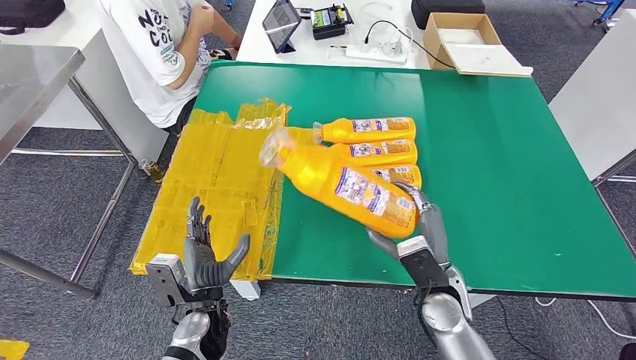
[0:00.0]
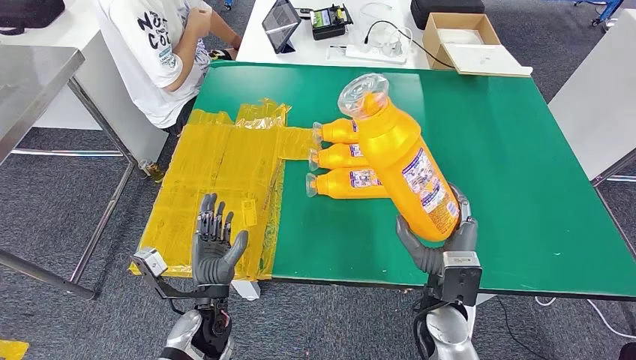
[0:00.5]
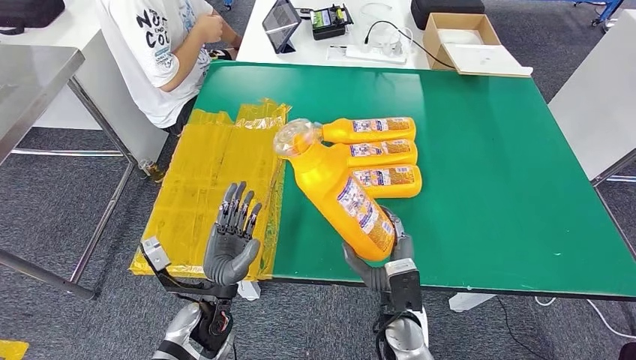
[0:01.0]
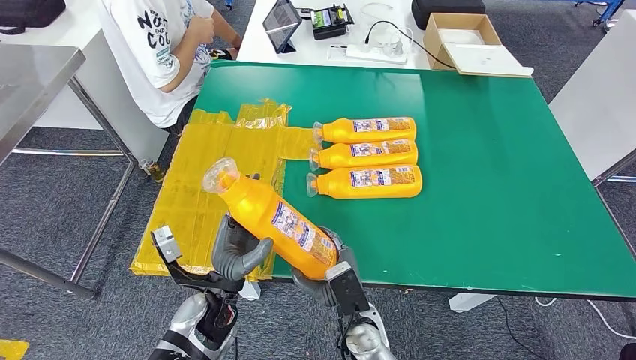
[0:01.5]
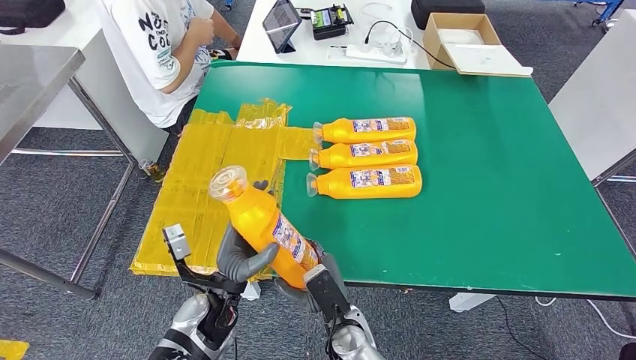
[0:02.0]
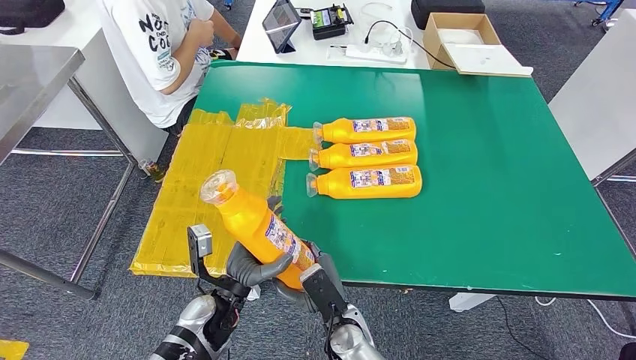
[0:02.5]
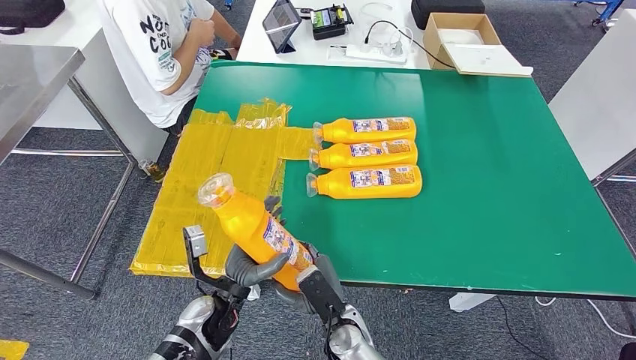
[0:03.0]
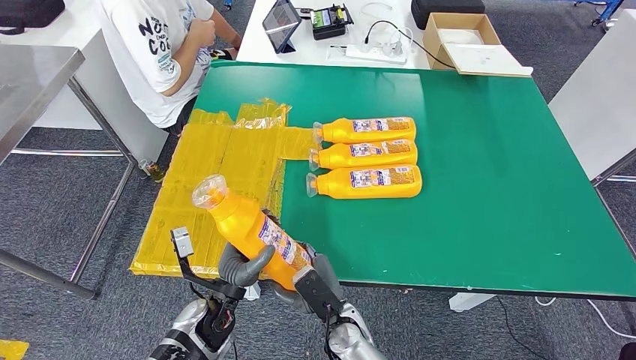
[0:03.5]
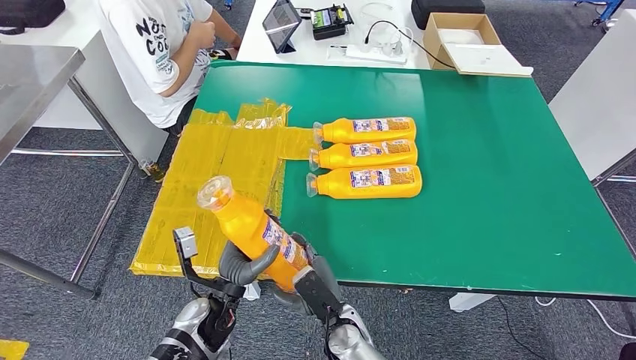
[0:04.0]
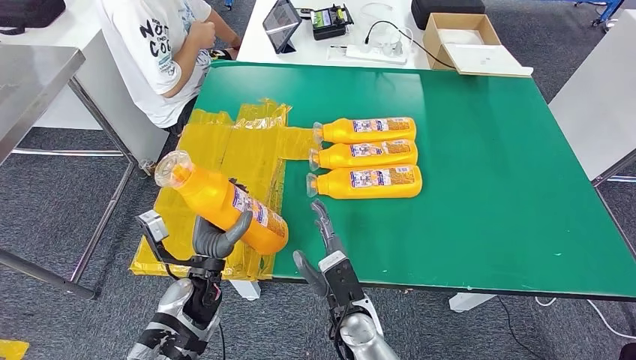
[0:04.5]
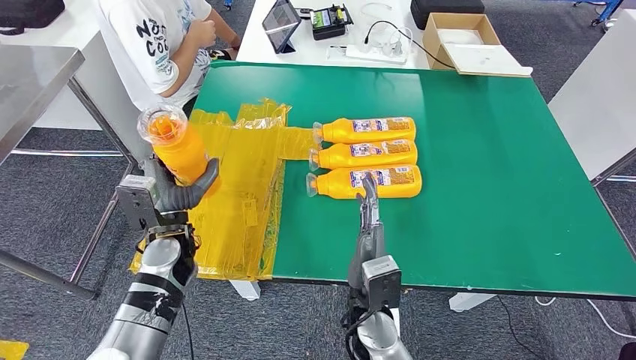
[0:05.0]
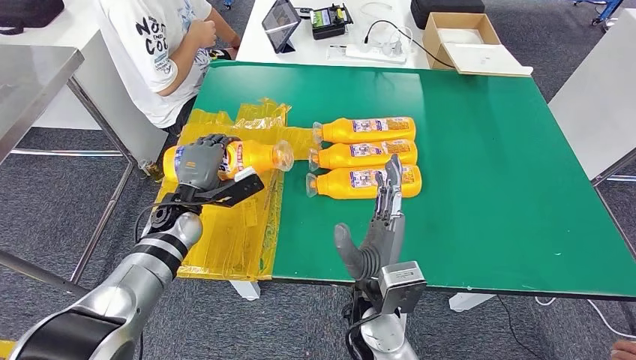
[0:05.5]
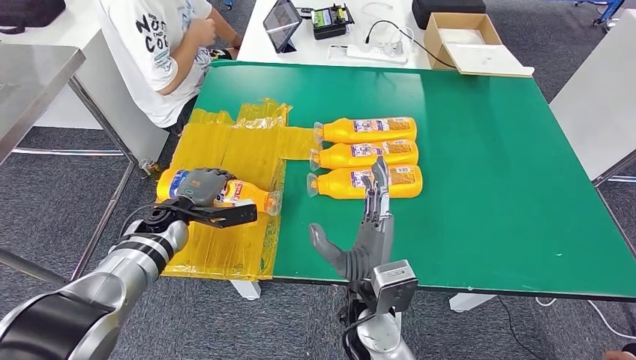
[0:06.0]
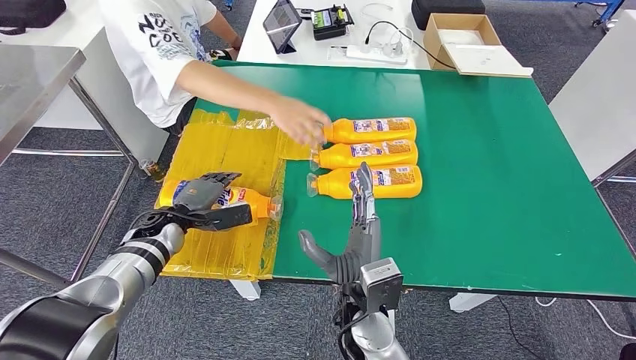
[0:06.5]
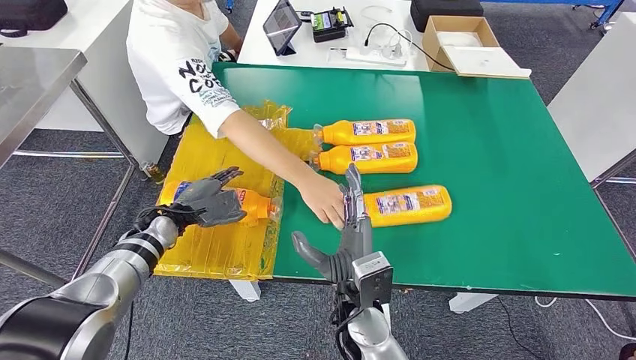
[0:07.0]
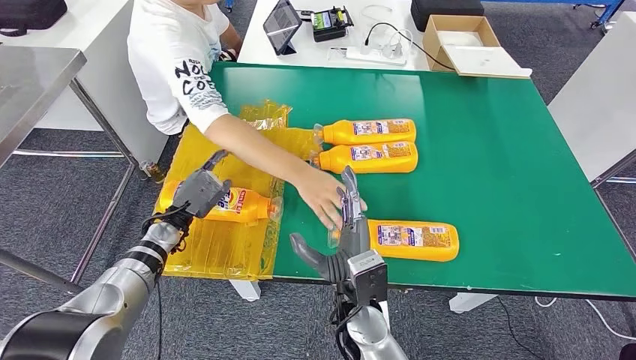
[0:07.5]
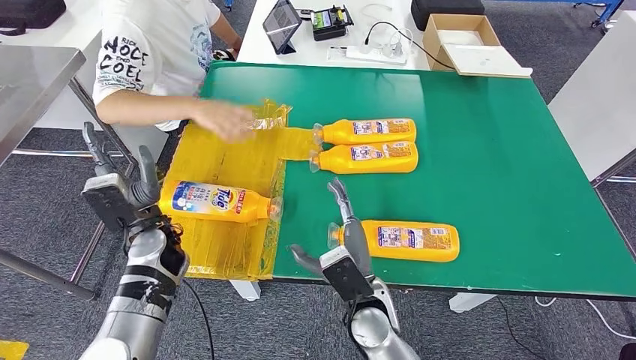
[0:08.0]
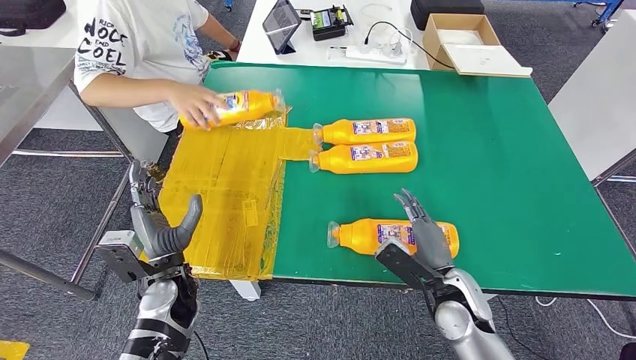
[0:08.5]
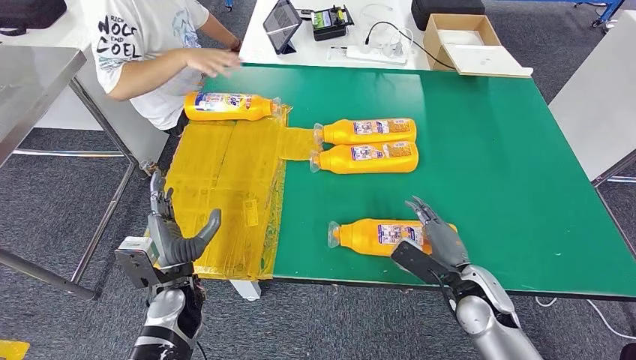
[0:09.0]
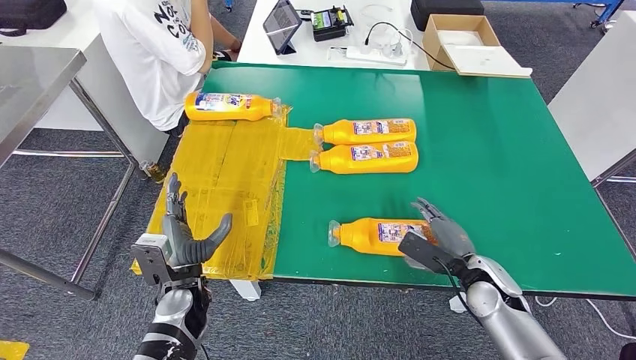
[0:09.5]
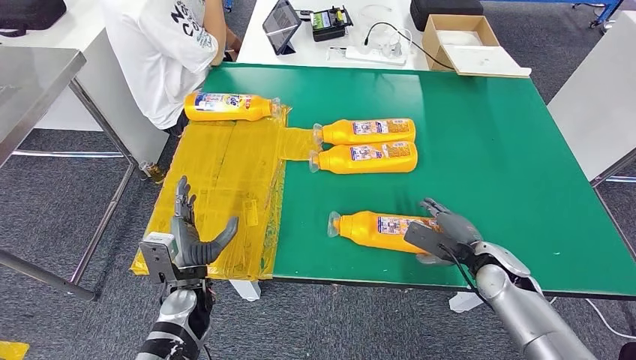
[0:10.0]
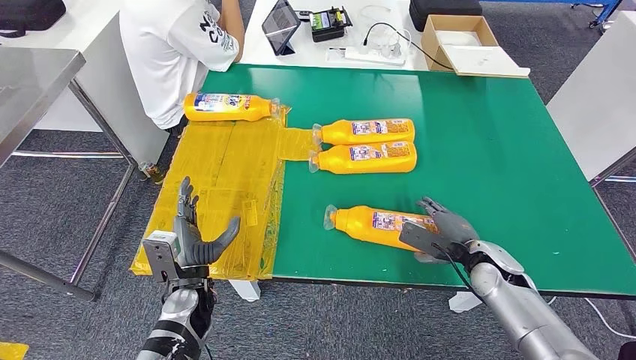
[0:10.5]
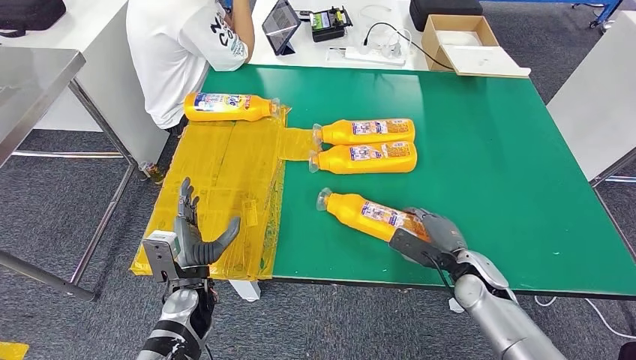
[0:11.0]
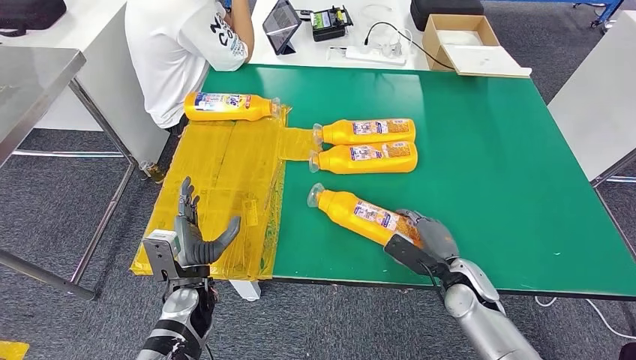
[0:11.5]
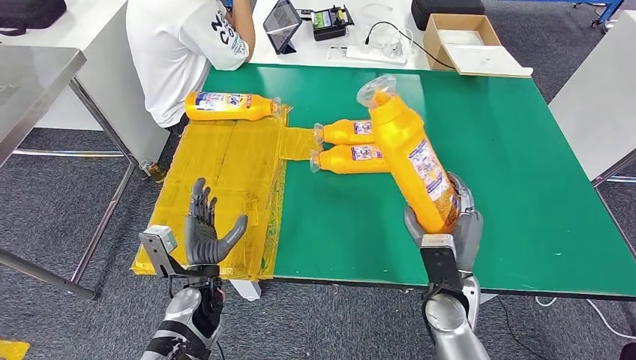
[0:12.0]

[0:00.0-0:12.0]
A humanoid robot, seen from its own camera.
Step, 0:00.5 to 0:06.5: Flip the fast-moving consumer goods bottle to the front side.
0:00.0 to 0:02.0: The right hand goes some 20 cm to the left and downward.
0:02.0 to 0:04.0: The hands move only a little.
0:04.0 to 0:06.0: The left hand goes some 20 cm forward and to the left; the right hand goes some 15 cm upward.
0:10.0 to 0:12.0: The right hand shifts roughly 15 cm to the left and backward.

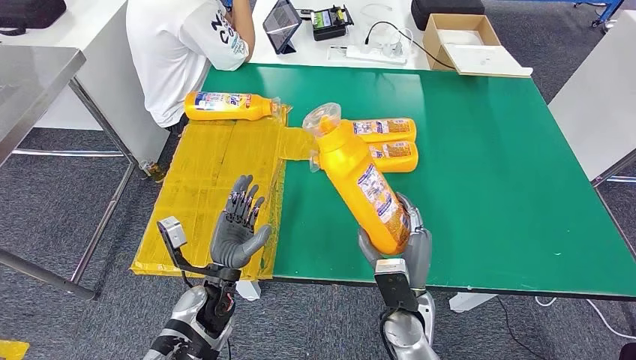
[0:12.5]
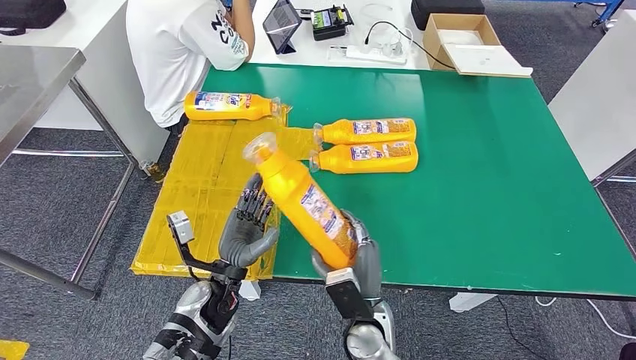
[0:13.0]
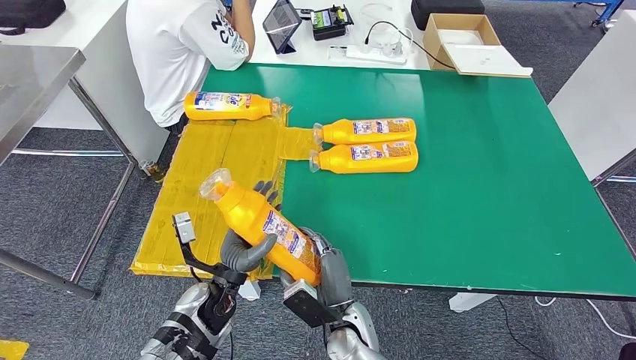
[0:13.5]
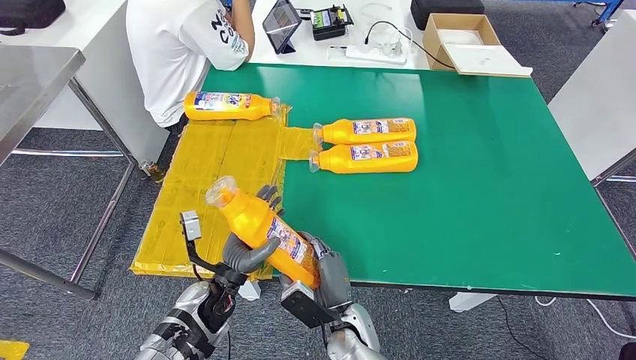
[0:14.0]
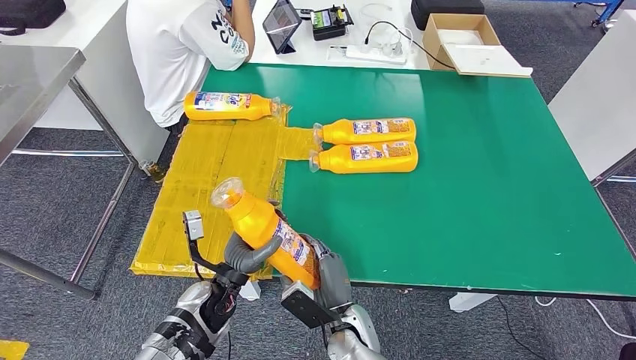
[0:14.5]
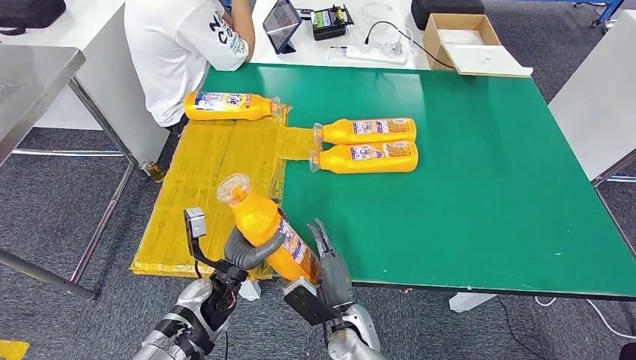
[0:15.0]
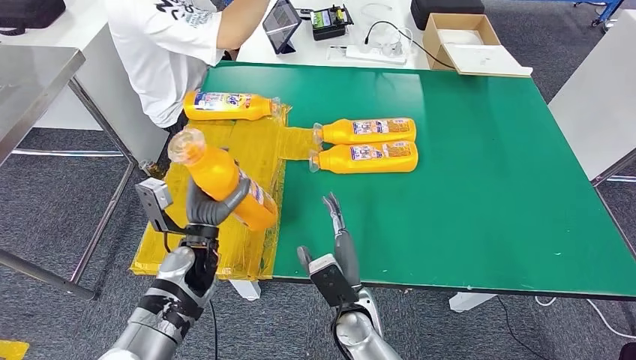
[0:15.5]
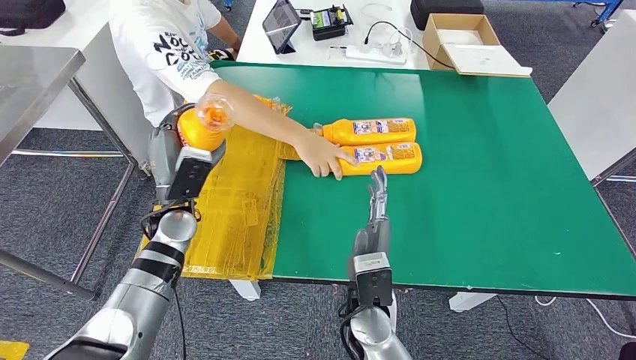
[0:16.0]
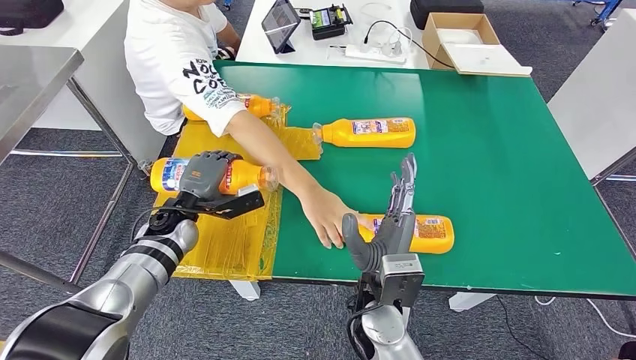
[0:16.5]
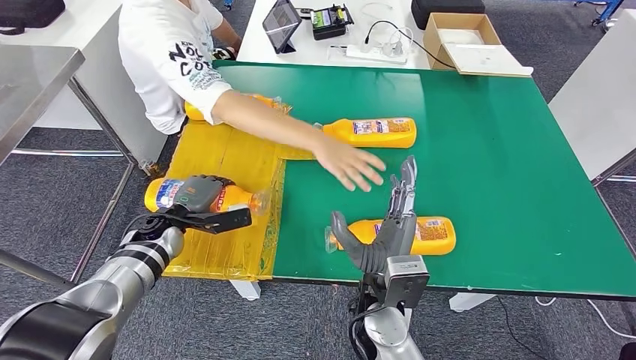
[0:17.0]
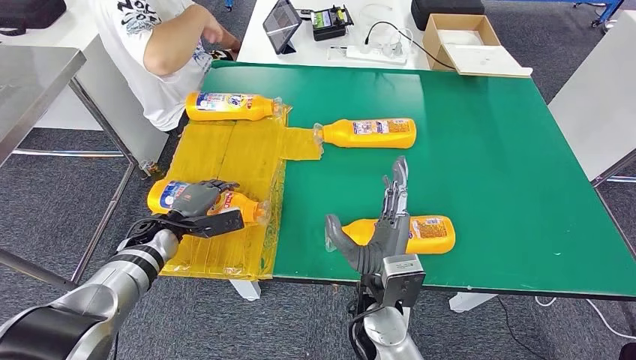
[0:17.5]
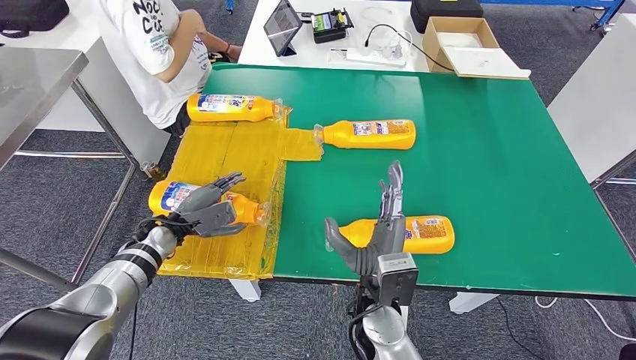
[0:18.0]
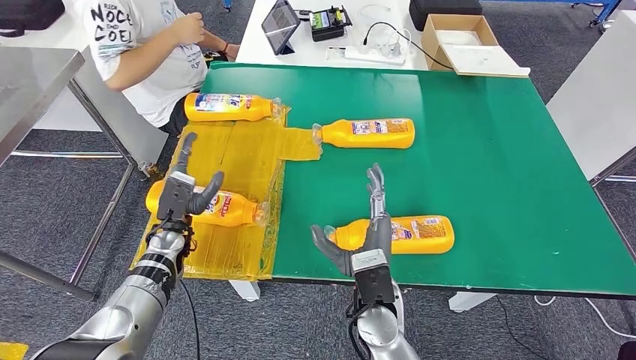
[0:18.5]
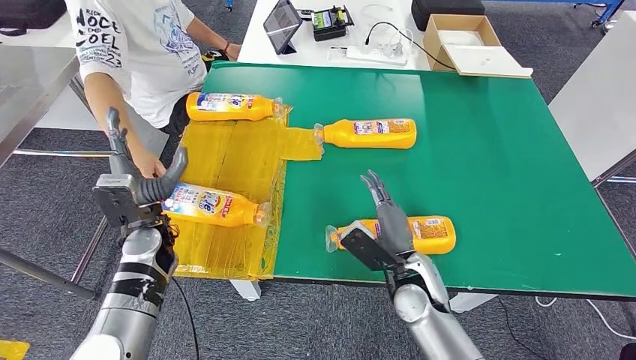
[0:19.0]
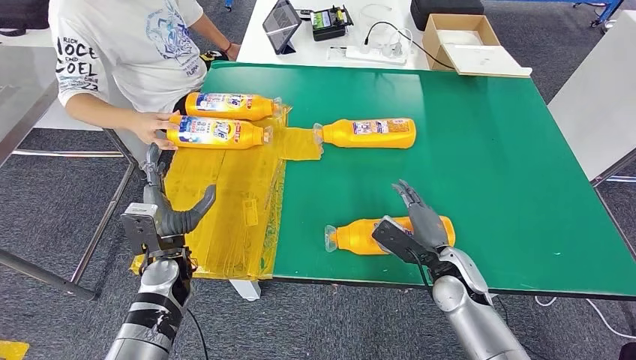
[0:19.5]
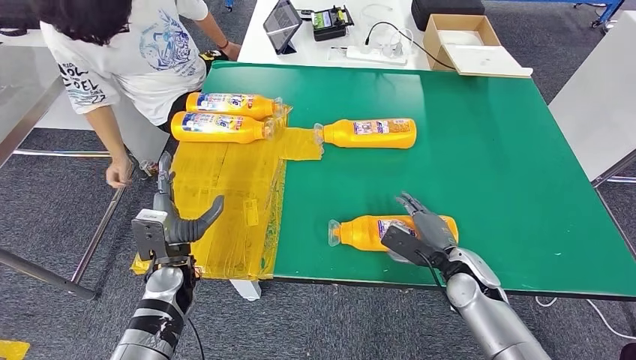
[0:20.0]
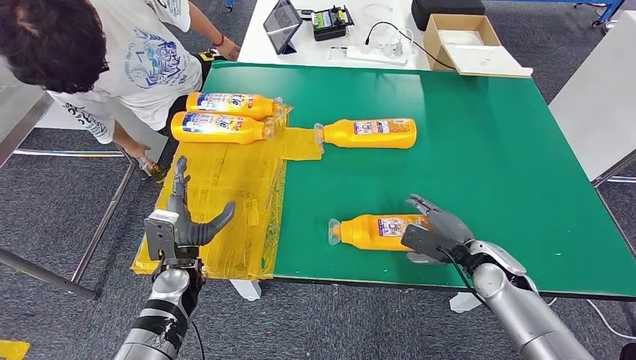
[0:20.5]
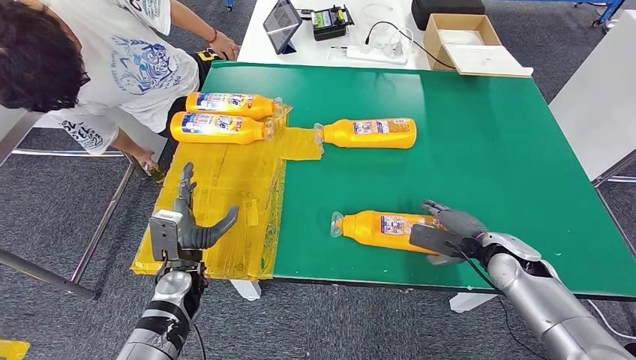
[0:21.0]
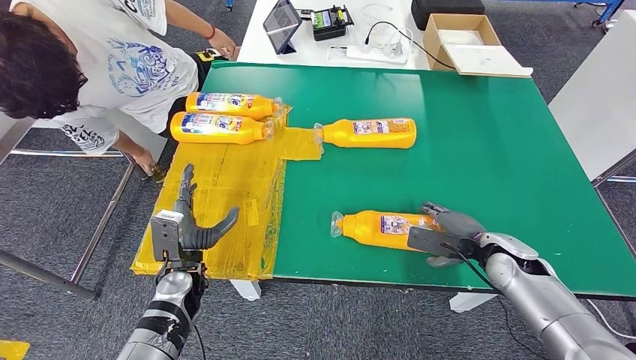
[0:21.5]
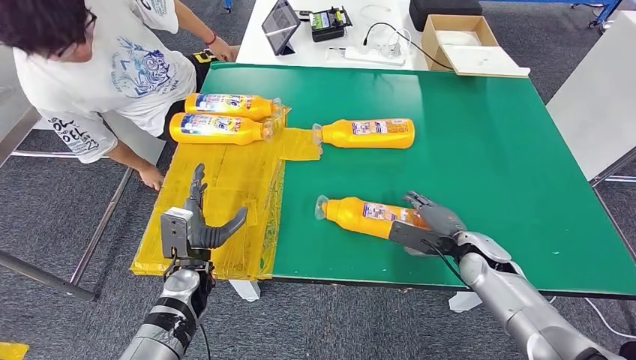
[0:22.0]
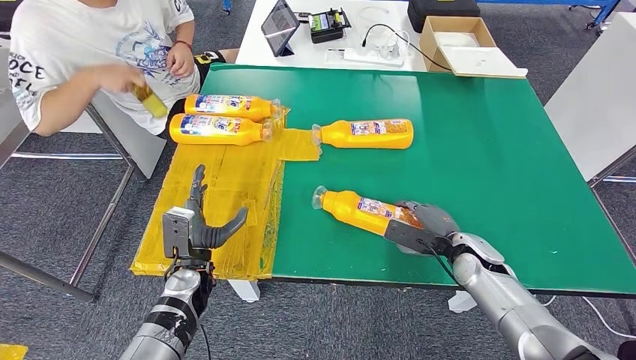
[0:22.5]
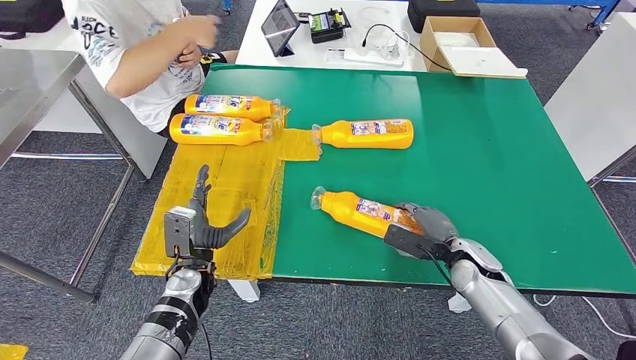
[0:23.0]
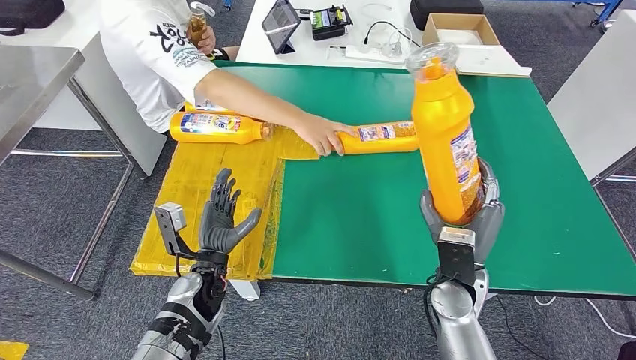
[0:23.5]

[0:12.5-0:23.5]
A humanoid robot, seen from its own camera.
Step, 0:13.5 to 0:18.5: Flip the fast-moving consumer goods bottle to the front side.
0:12.5 to 0:14.5: The right hand goes some 10 cm to the left and downward.
